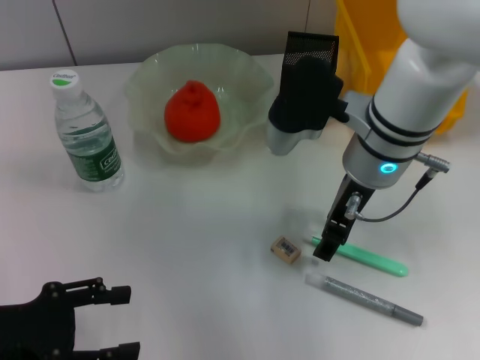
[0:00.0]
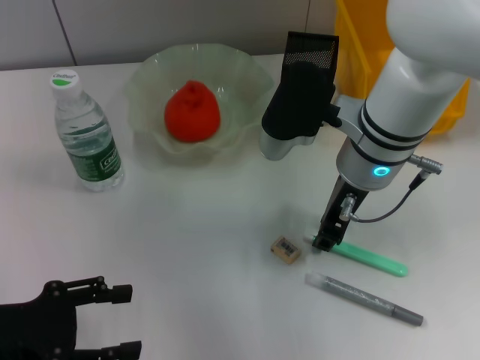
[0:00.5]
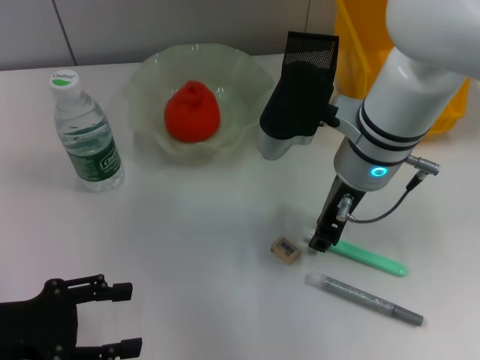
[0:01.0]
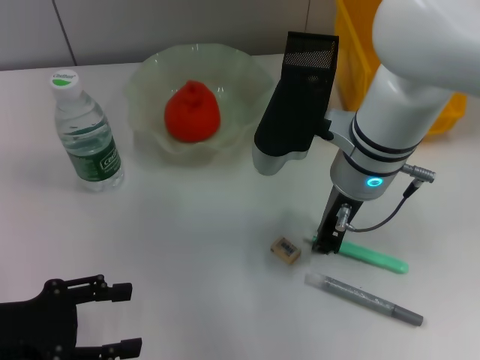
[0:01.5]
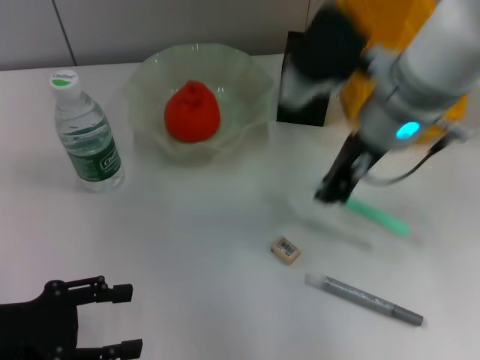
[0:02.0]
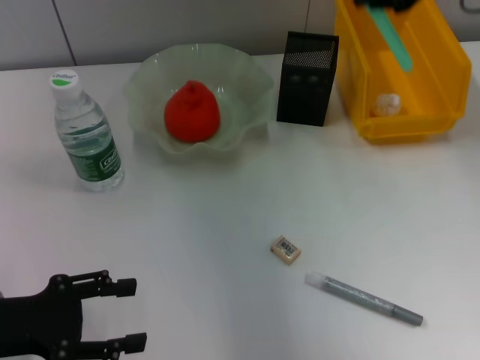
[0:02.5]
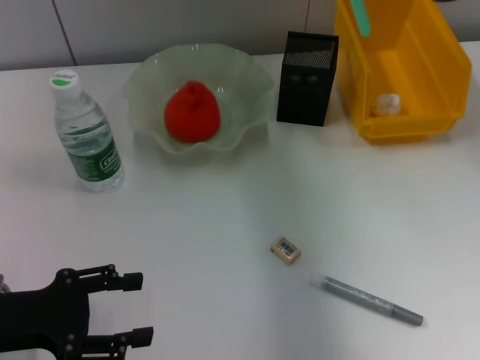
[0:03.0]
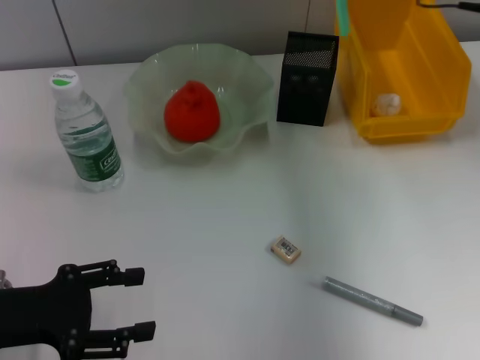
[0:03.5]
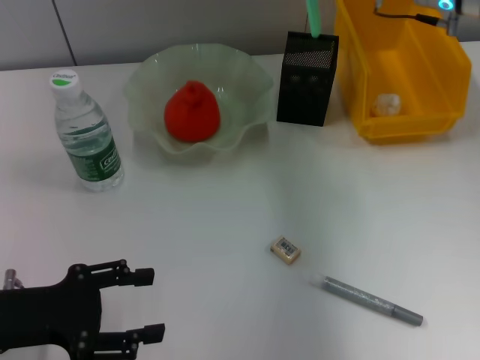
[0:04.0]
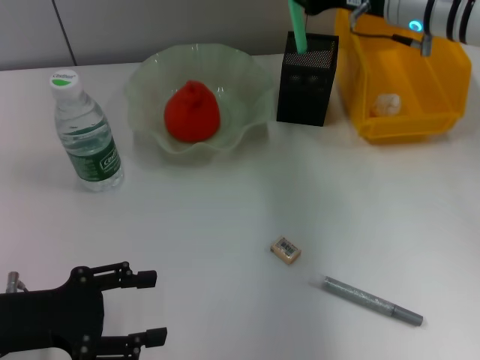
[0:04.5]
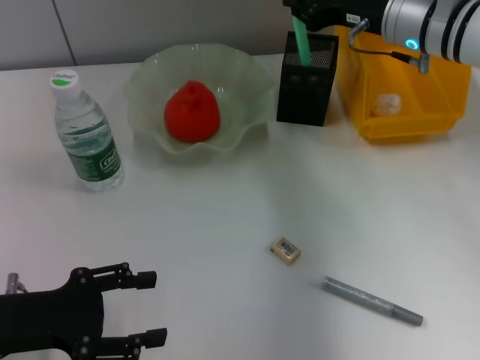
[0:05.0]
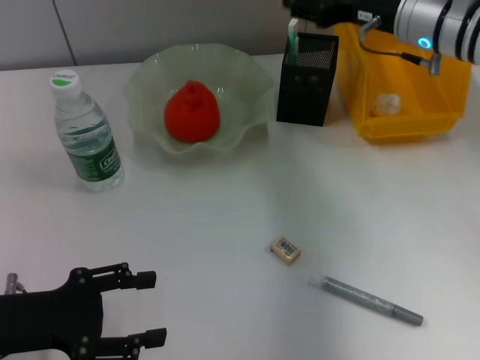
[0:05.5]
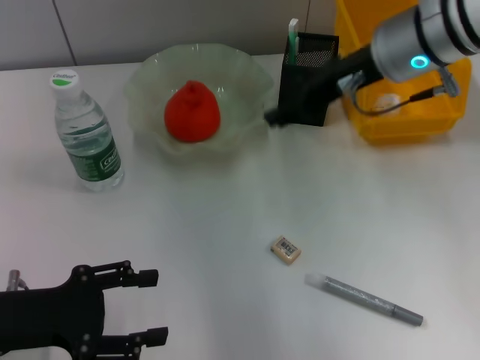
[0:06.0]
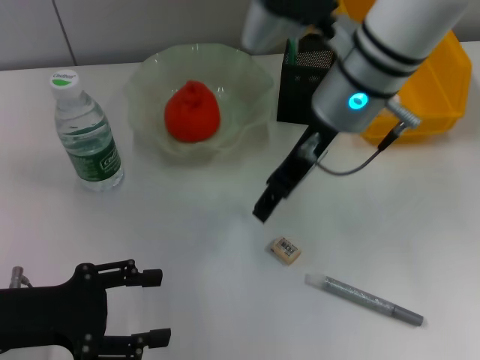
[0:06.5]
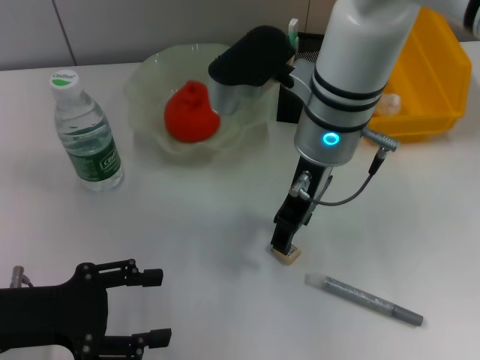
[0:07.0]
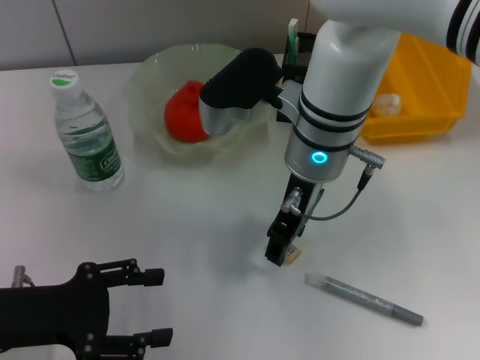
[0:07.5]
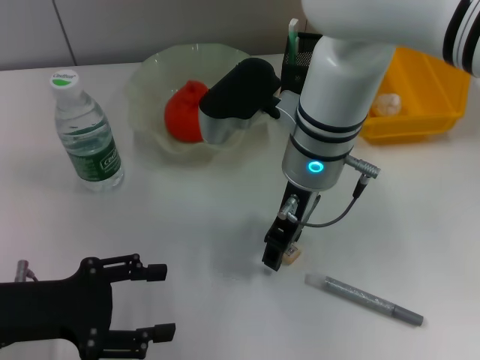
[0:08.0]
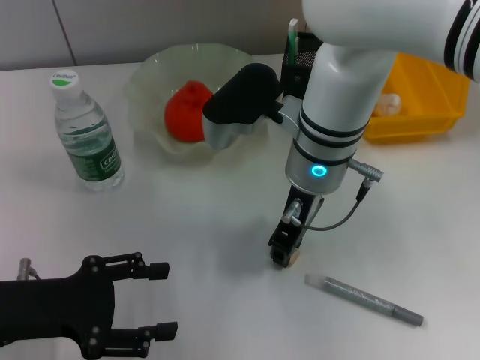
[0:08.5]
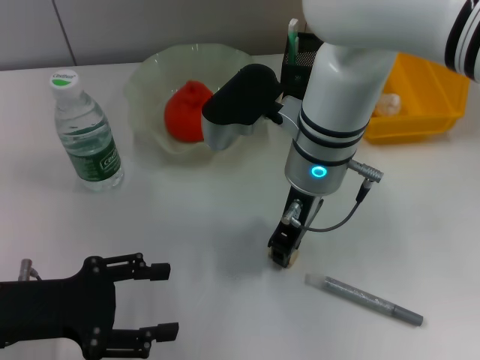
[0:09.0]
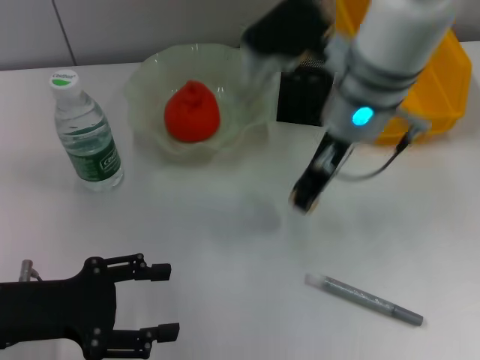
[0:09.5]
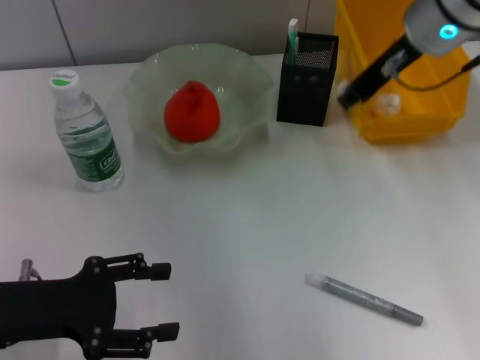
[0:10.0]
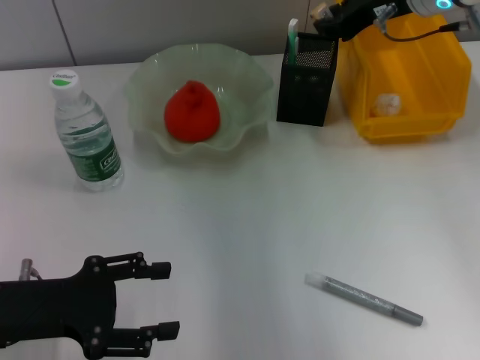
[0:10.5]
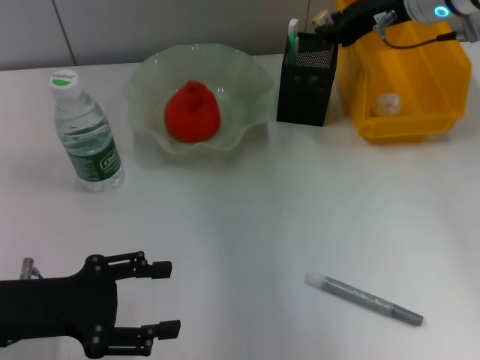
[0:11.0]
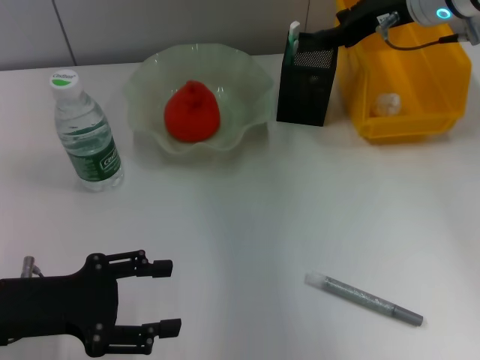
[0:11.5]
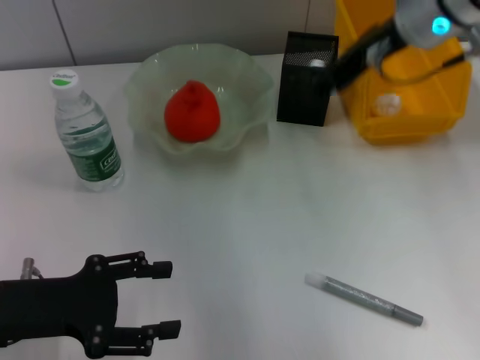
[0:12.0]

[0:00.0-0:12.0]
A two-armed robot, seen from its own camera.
Step, 0:01.5 to 0:05.5: Place the blue utility knife into the pen holder with the right hand.
Step, 0:06.0 to 0:08.5: Grab the eraser with the right hand.
Step, 0:09.0 to 0:11.5: Put the eraser into the pen holder with the right hand.
0:00.0 to 0:02.0: The right gripper closes.
0:02.0 to 0:04.0: The right gripper travels forward and to the right by approximately 15 cm.
0:04.0 to 0:06.0: The right gripper shifts some 10 cm to the left and backward, and opens its fingers.
0:06.0 to 0:08.0: The right gripper moves to the left and downward, approximately 10 cm.
0:08.0 to 0:10.0: The right gripper shifts approximately 15 cm to the right and upward, and closes up.
0:10.0 to 0:12.0: The right gripper opens up.

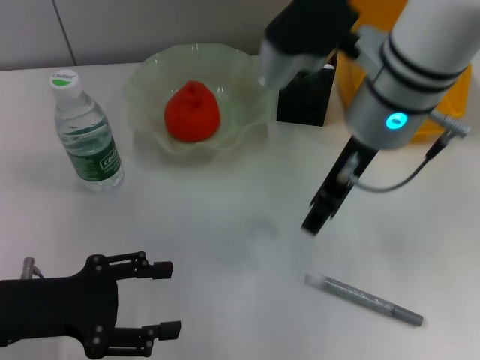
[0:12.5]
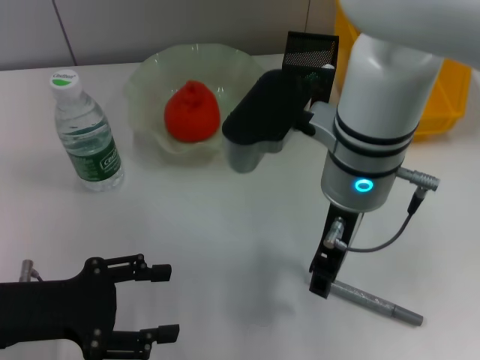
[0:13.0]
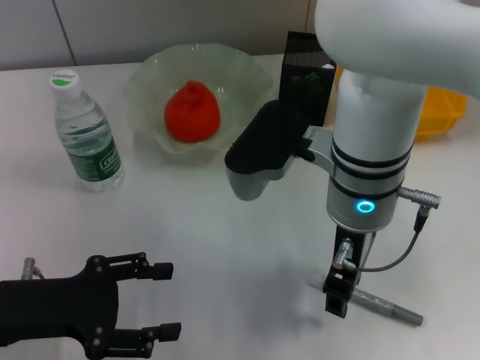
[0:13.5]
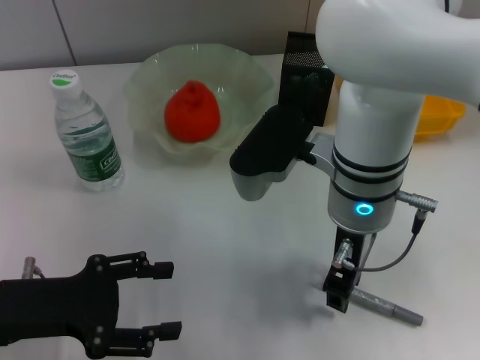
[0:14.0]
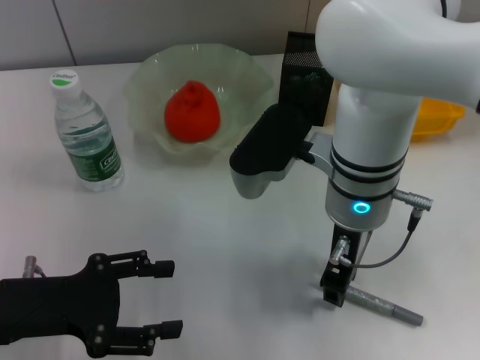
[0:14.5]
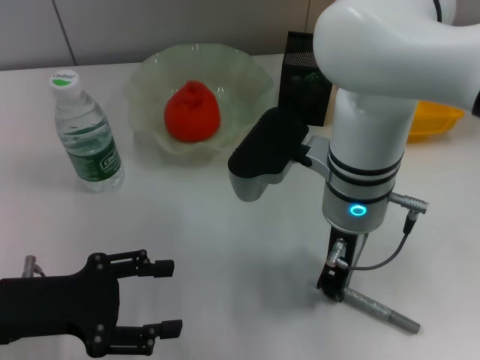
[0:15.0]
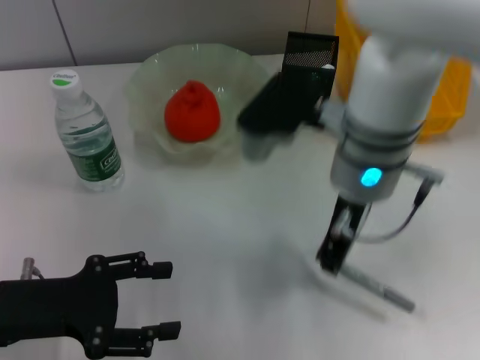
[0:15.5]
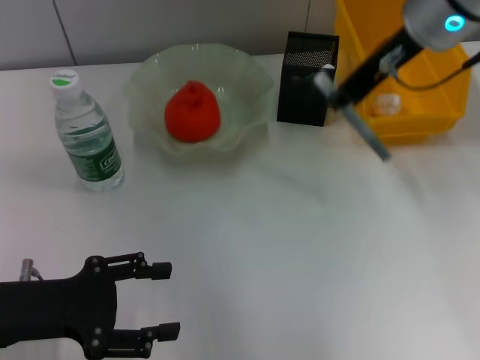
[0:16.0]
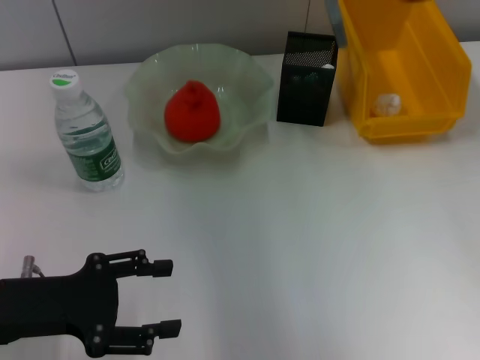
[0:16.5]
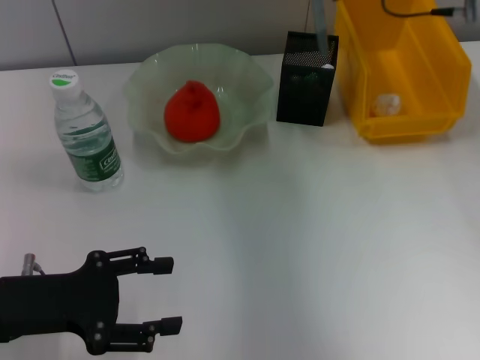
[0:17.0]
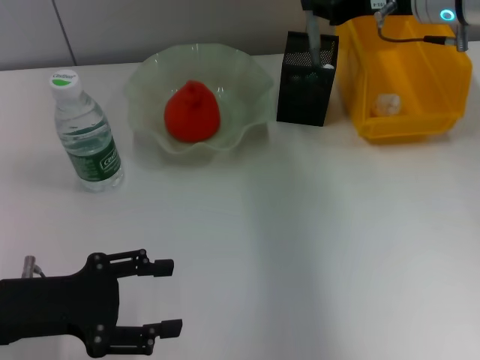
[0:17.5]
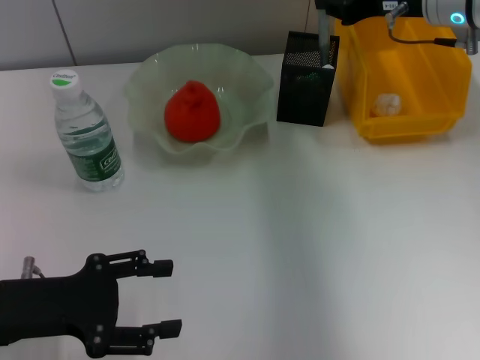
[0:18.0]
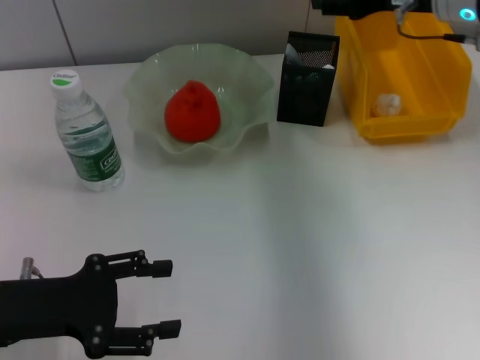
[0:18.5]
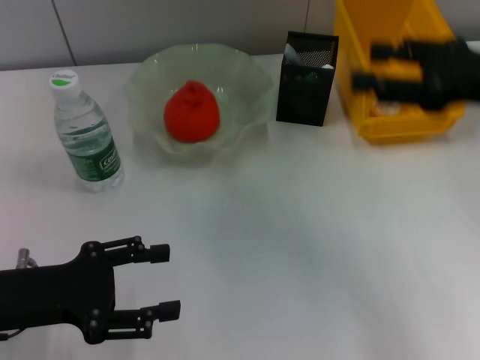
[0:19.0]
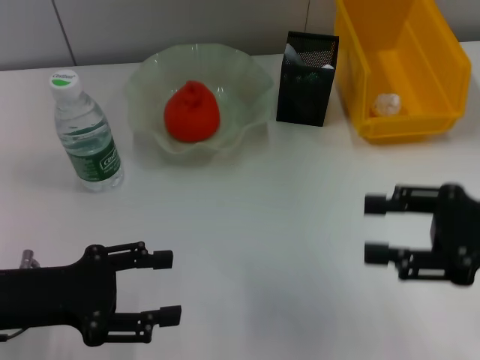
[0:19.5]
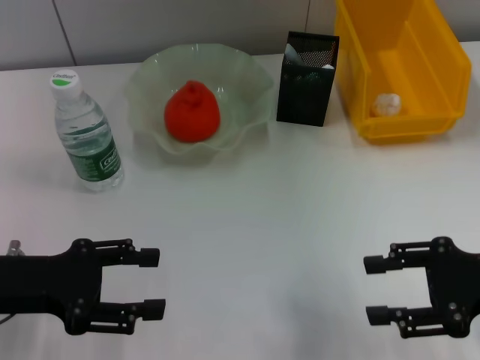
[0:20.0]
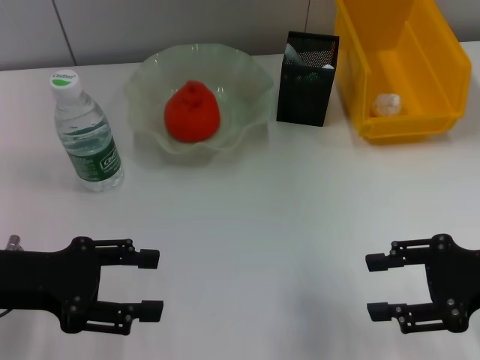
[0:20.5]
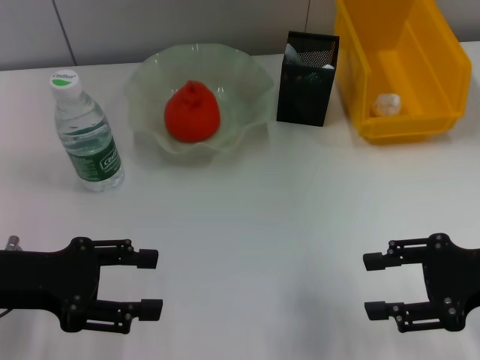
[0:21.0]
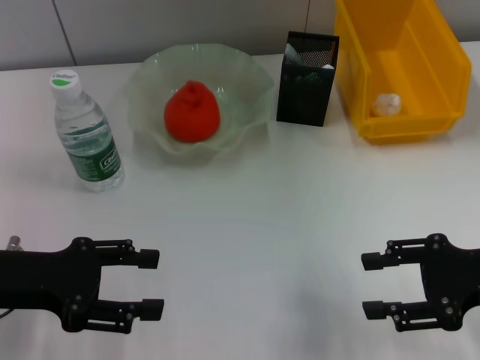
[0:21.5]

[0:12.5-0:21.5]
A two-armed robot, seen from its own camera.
Step, 0:12.5 to 0:15.0: Grab the gray glue with the right hand.
Step, 0:15.5 to 0:18.5: Place the gray glue into the pen holder with the right hand.
0:12.5 to 0:14.5: The right gripper shifts approximately 5 cm downward.
0:14.5 to 0:17.0: The right gripper heads to the right, forward and upward, covering about 20 cm, and closes its fingers.
0:17.0 to 0:19.5: The right gripper moves backward and downward, approximately 25 cm, and opens.
0:19.5 to 0:21.5: The grippers stay close to where they were, moving slightly.

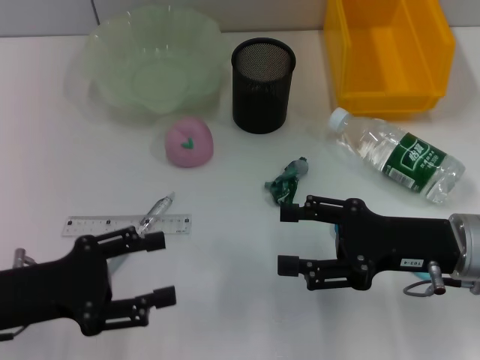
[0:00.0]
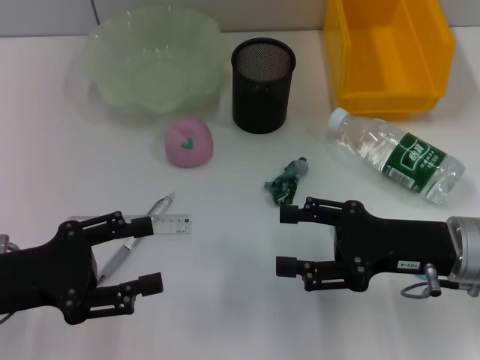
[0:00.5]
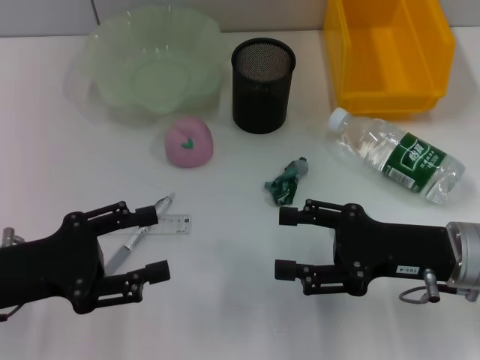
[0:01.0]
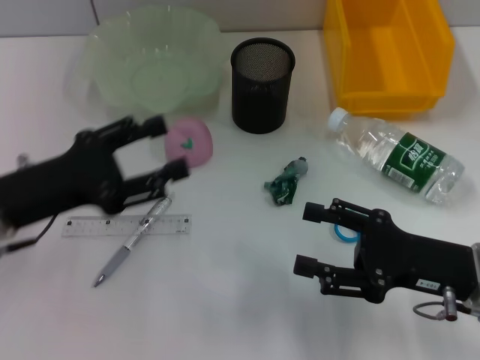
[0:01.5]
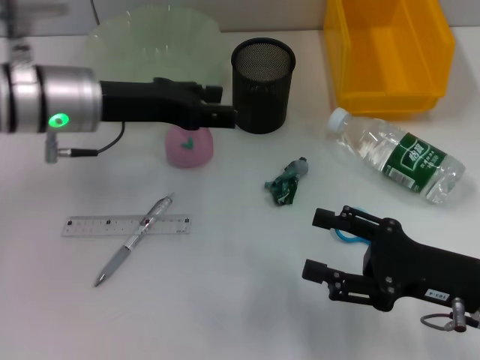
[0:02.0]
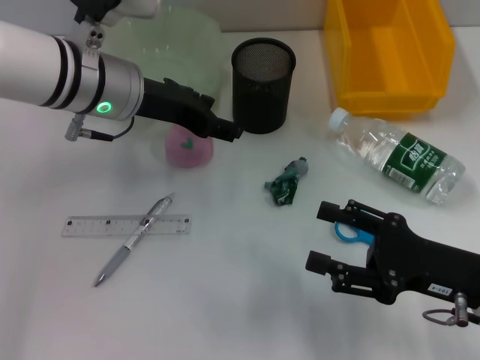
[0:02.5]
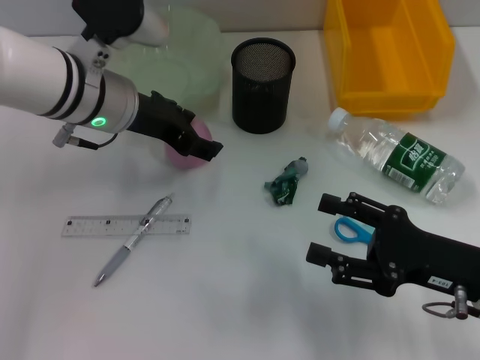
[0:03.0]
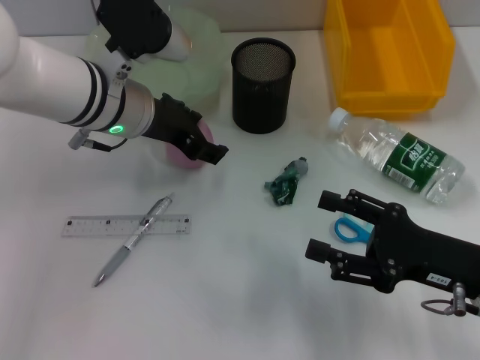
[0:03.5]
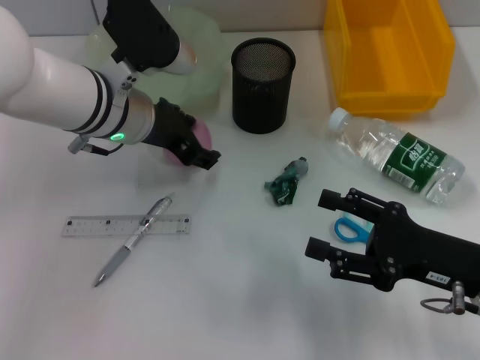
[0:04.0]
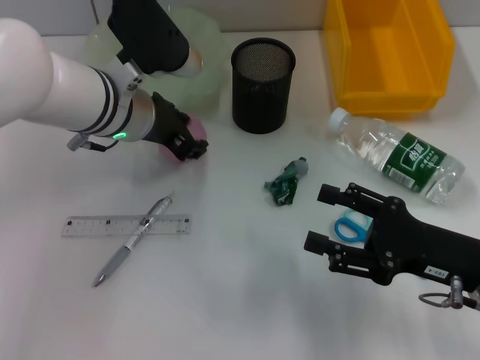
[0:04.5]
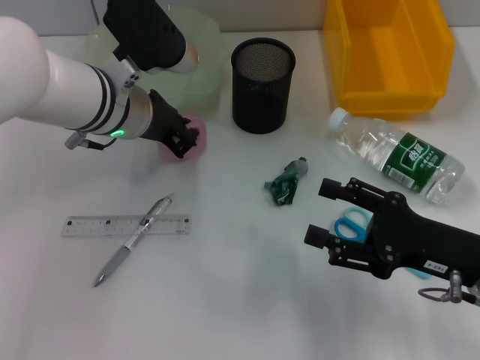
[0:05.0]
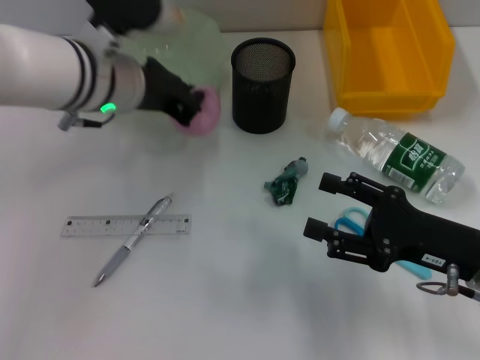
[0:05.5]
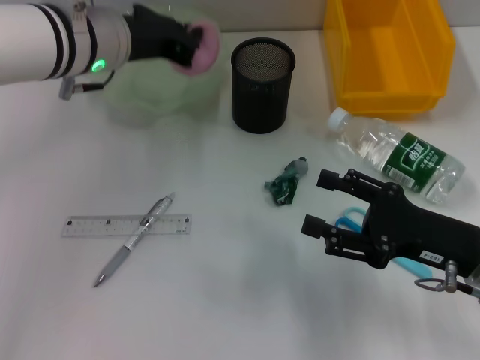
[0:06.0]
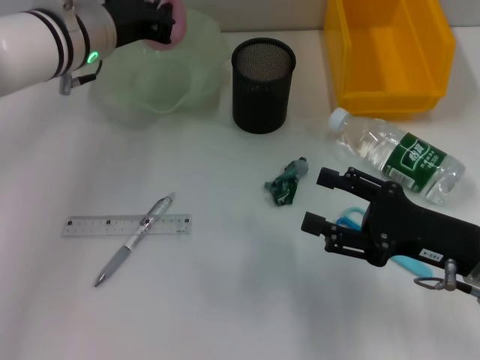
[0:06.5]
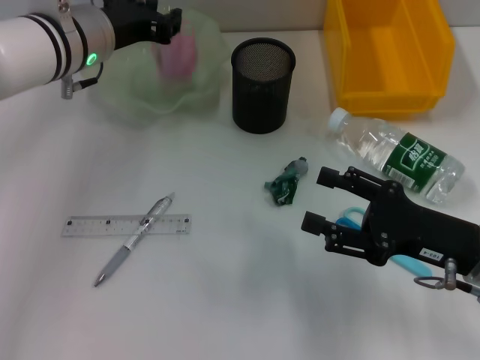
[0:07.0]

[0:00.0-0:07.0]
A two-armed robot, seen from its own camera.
Step, 0:00.0 to 0:05.0: Grab the peach with the left hand.
0:00.0 to 0:02.0: The left gripper moves forward, to the right and upward, roughly 20 cm, while the right gripper moves approximately 5 cm.
0:02.0 to 0:03.5: The left gripper shifts by roughly 5 cm.
0:03.5 to 0:05.0: The left gripper closes up.
0:05.0 to 0:07.0: The left gripper changes place by roughly 5 cm.
